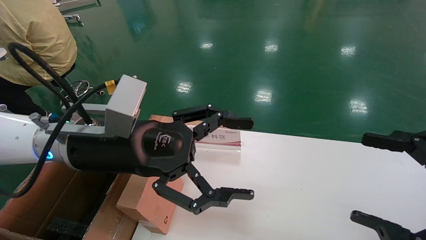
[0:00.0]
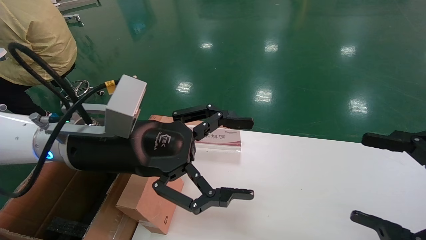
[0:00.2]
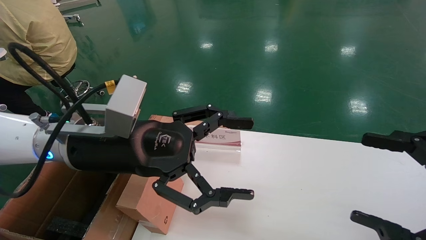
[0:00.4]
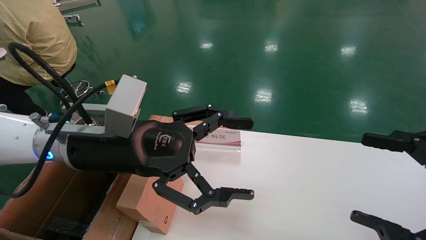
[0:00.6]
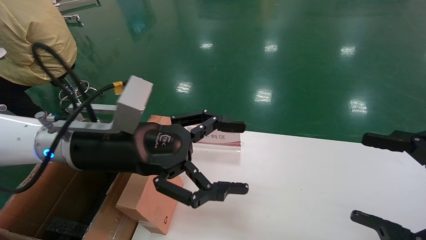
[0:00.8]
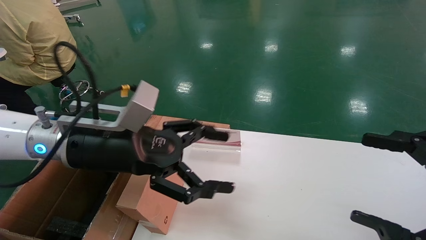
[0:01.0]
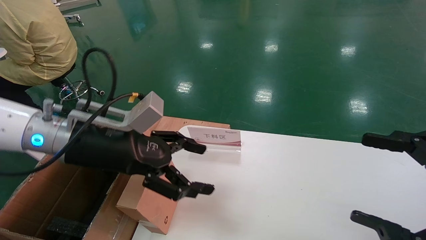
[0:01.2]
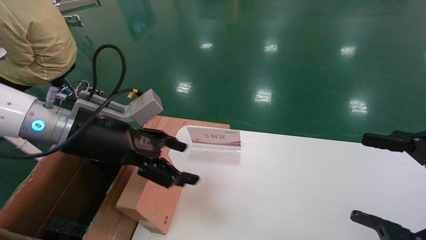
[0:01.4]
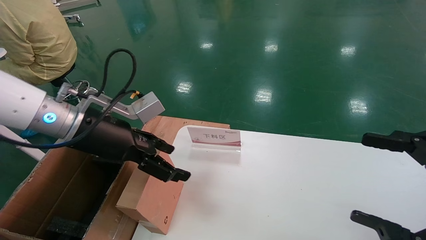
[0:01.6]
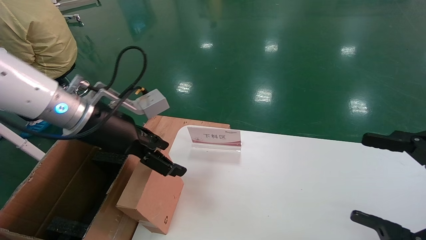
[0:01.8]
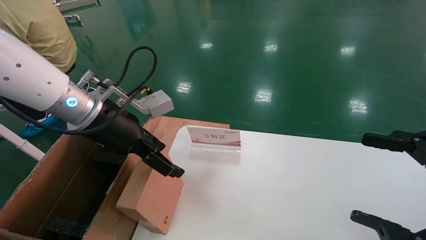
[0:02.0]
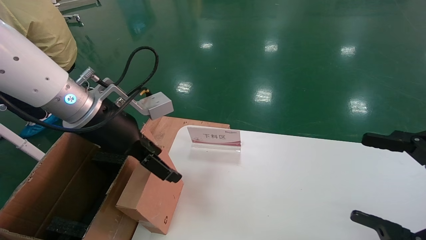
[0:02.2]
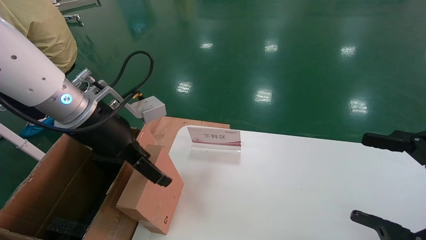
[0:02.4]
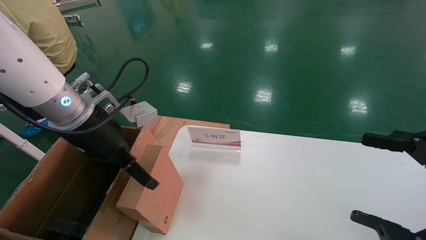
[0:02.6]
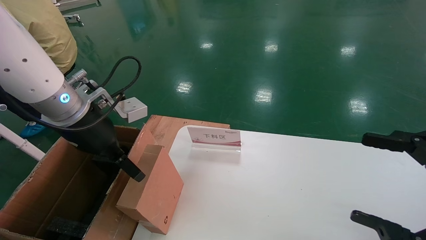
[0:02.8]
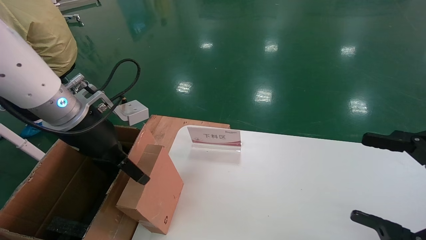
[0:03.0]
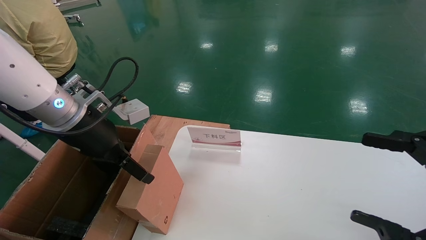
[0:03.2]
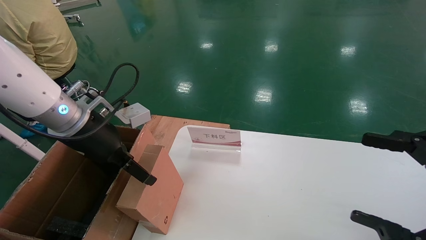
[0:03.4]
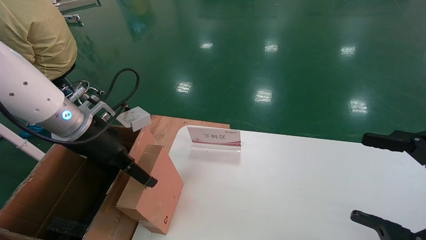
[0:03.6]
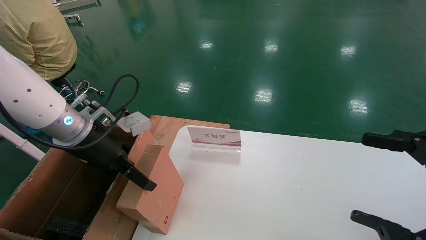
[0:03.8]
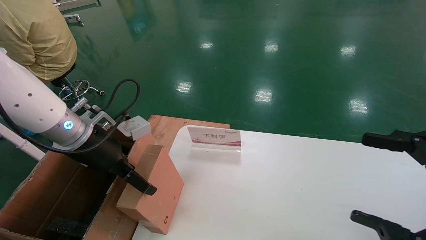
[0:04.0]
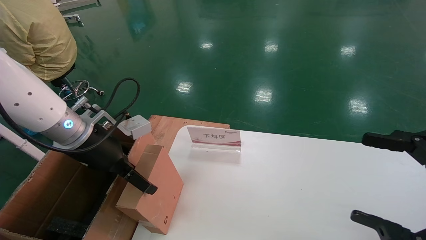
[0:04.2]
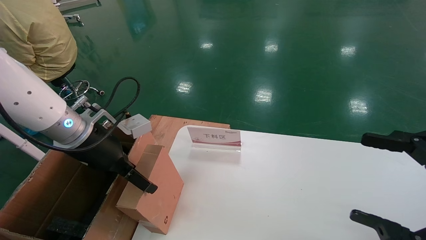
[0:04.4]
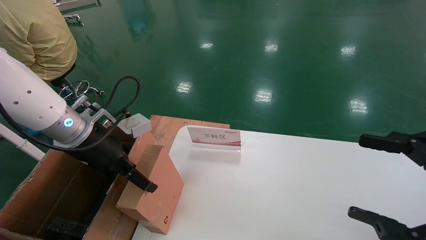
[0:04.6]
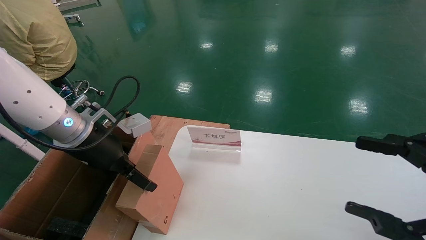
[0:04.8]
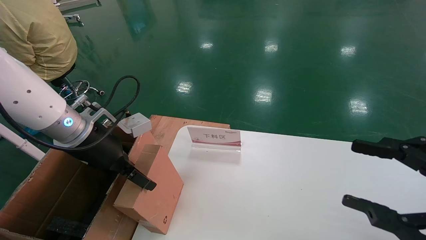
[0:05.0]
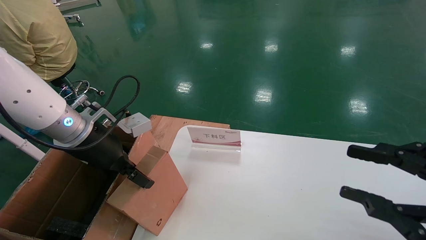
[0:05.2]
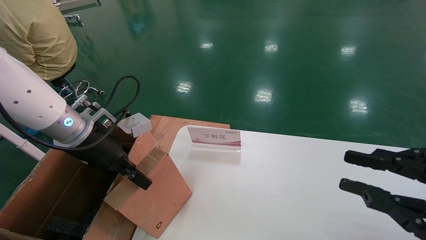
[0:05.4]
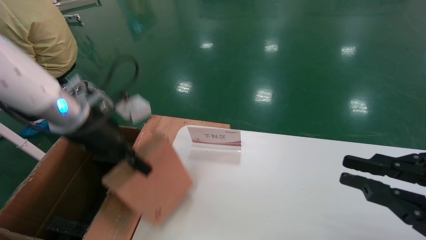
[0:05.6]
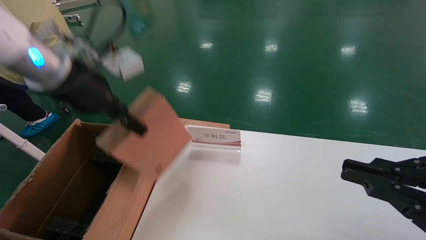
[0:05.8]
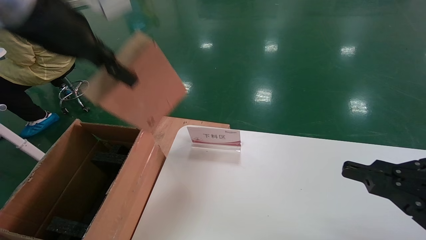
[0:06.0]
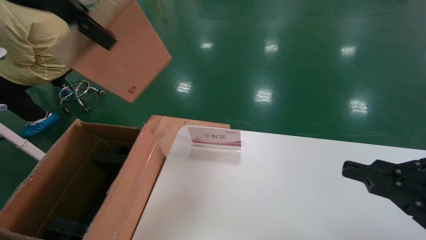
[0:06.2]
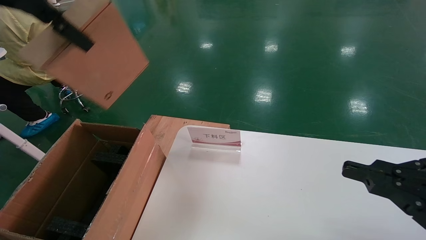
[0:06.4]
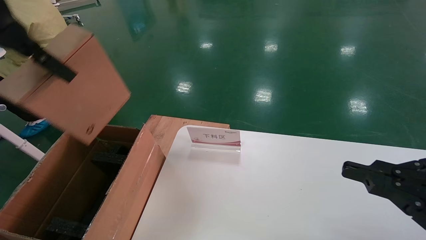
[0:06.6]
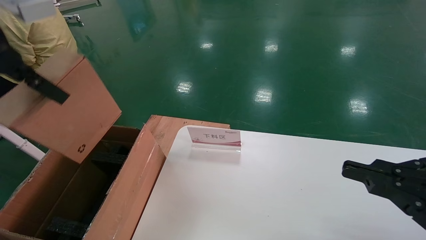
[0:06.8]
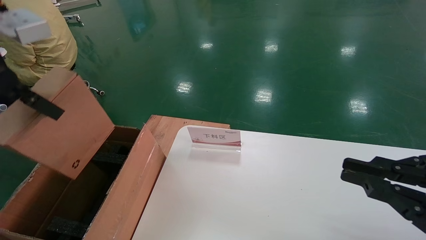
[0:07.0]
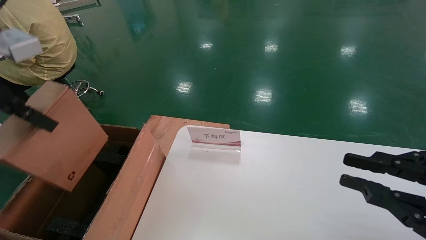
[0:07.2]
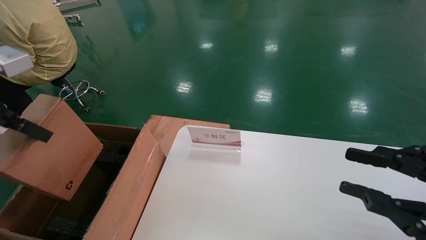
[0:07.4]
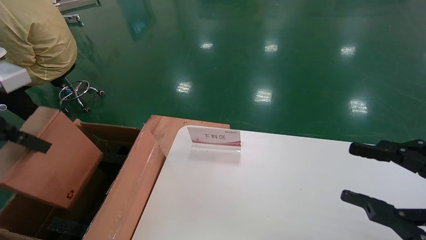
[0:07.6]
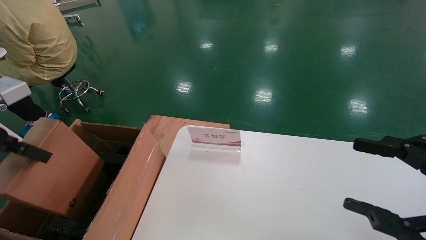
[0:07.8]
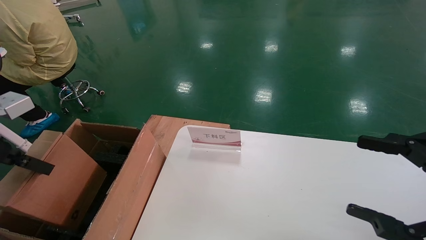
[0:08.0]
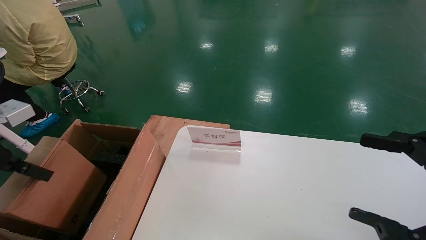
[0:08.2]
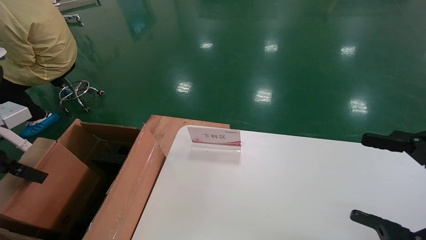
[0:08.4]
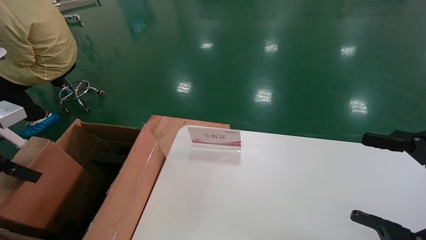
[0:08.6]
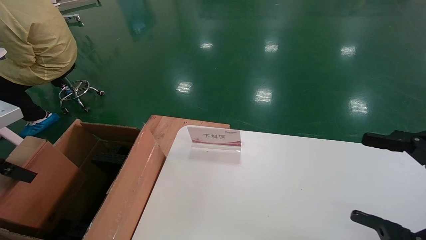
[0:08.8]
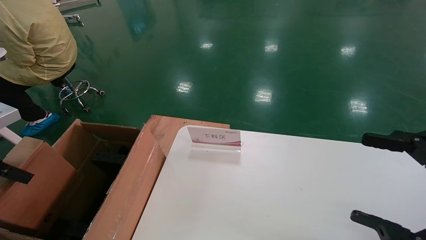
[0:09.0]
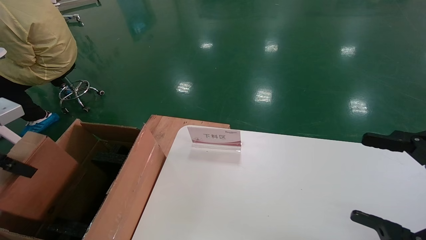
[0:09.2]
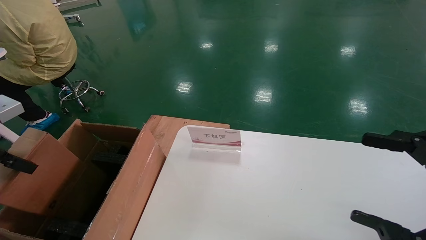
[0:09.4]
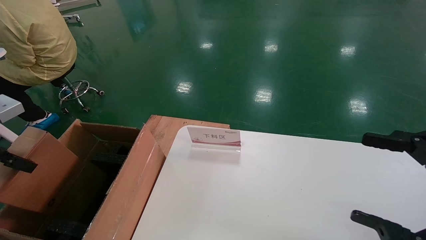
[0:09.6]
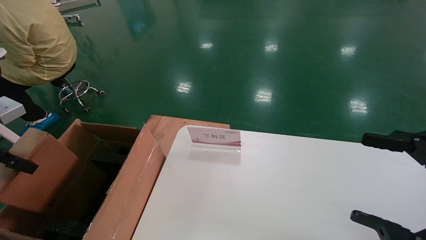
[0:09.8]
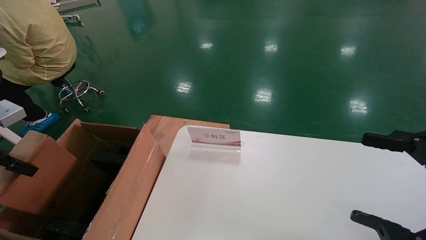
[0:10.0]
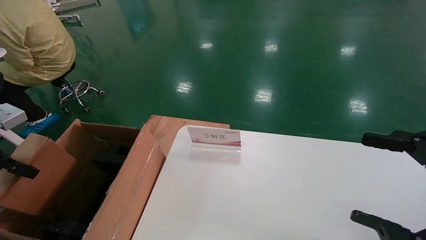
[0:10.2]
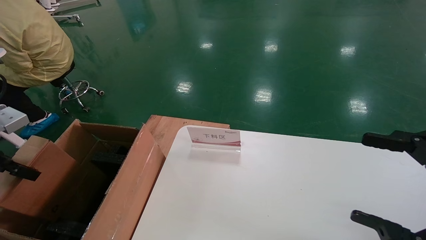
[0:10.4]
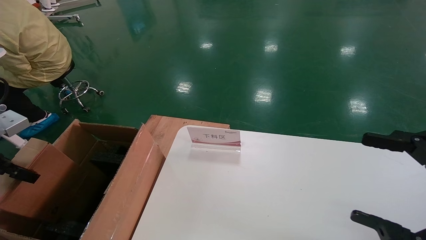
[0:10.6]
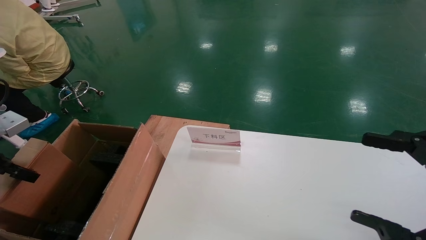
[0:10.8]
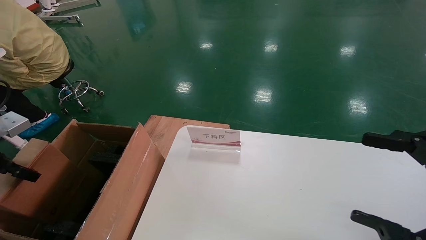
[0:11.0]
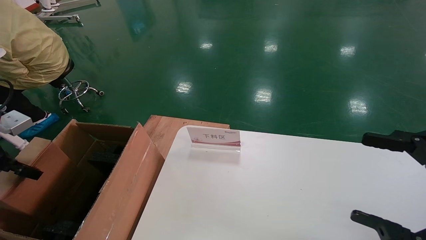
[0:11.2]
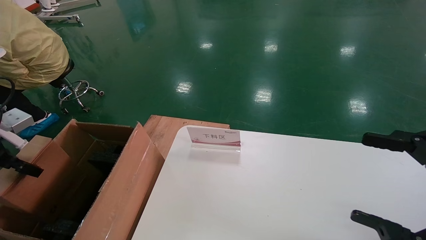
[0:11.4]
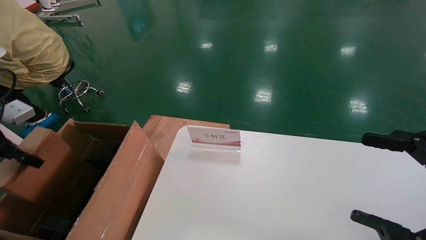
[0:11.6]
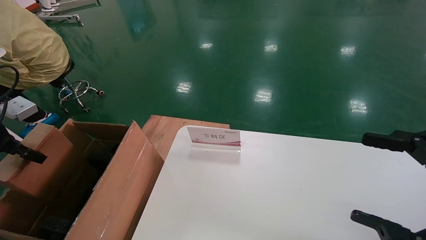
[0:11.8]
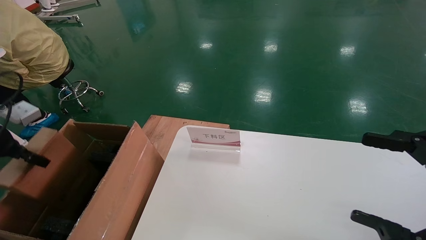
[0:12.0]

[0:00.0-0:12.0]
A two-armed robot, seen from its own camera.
Task of the whole recording: pick up the small cardboard box and load it into the large cardboard box.
Step, 0:01.2 to 0:05.2: Pick up the mouse and power cord box.
0:00.0 to 0:01.6: The left gripper shifts roughly 5 cm to the left.
0:03.0 to 0:04.4: The grippers move only a little.
0:04.4 to 0:06.0: The right gripper closes its fingers; the left gripper goes some 20 cm upward, and closes.
0:06.0 to 0:07.6: The left gripper heads to the left, downward and backward, covering approximately 20 cm. The right gripper opens up.
0:07.6 to 0:09.0: The left gripper heads downward and to the left, covering some 10 cm. Meanwhile the right gripper opens its fingers.
0:09.0 to 0:10.4: The grippers move only a little.
0:10.4 to 0:12.0: The left gripper ends up roughly 5 cm from where it was.

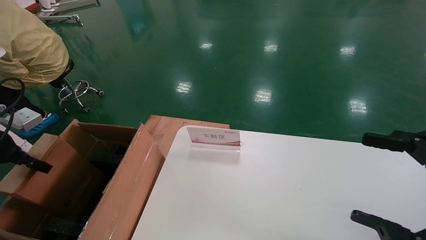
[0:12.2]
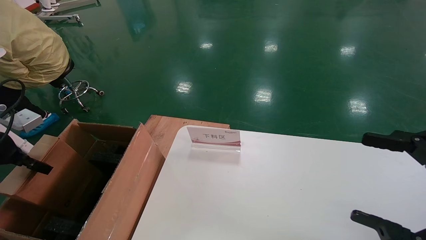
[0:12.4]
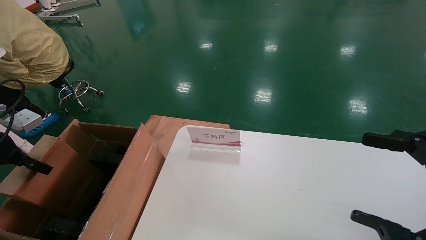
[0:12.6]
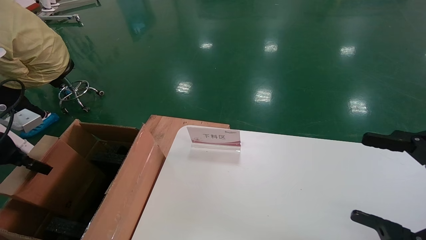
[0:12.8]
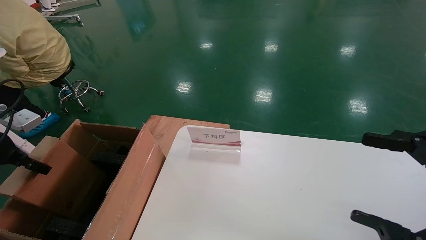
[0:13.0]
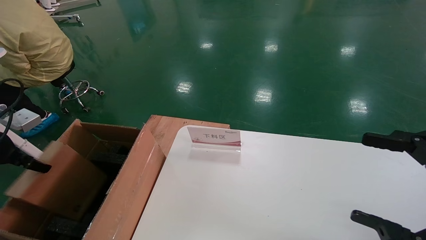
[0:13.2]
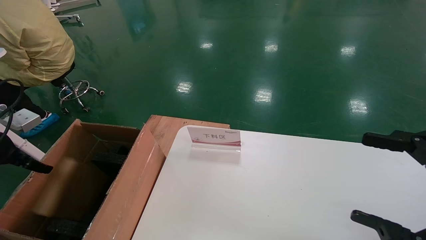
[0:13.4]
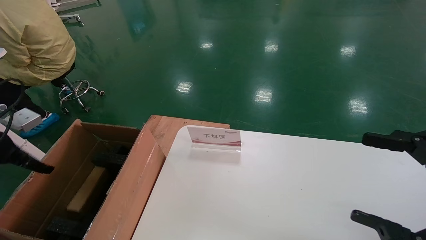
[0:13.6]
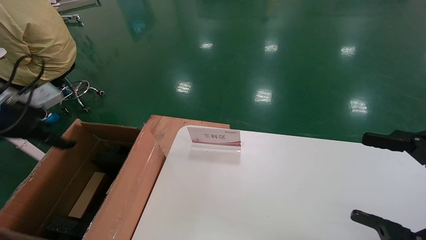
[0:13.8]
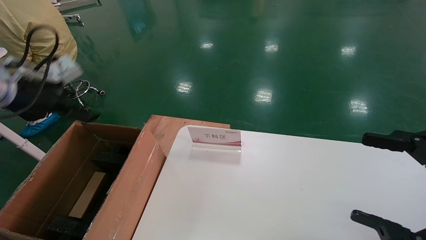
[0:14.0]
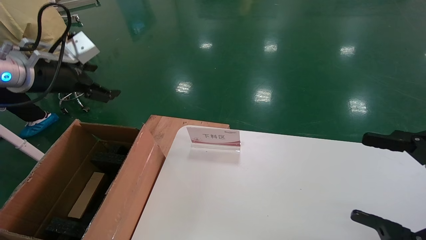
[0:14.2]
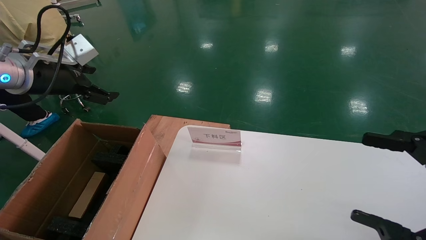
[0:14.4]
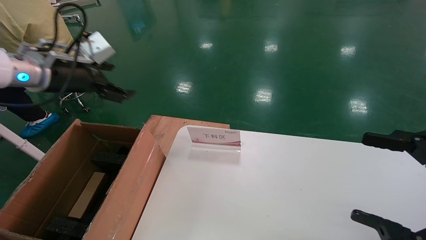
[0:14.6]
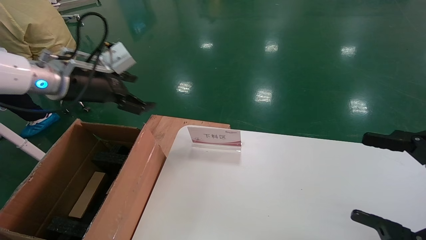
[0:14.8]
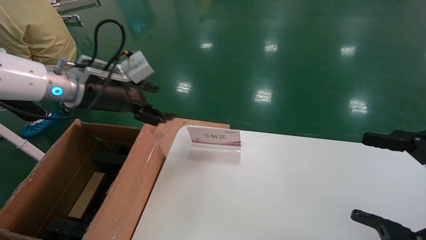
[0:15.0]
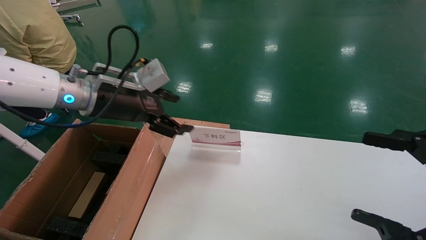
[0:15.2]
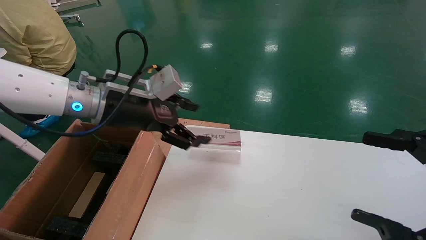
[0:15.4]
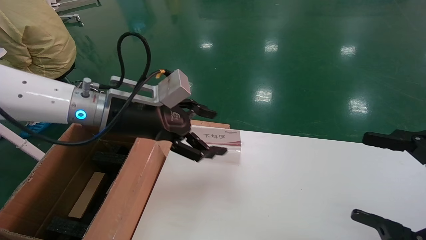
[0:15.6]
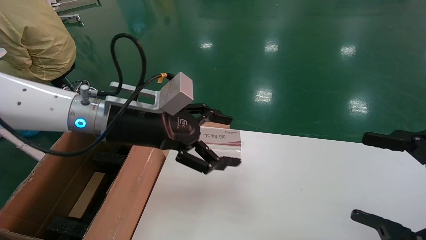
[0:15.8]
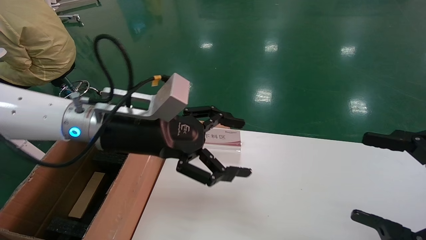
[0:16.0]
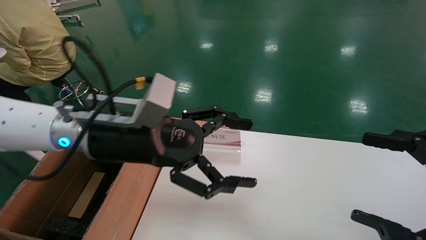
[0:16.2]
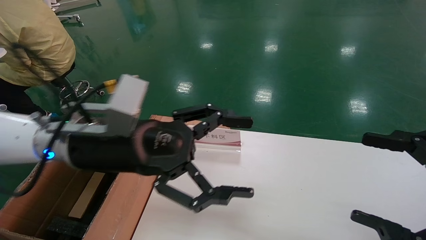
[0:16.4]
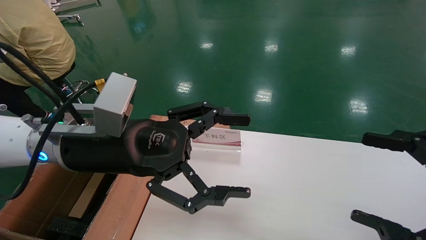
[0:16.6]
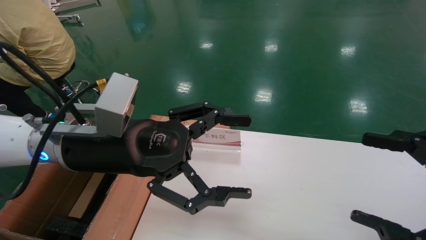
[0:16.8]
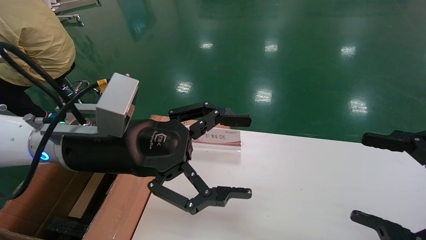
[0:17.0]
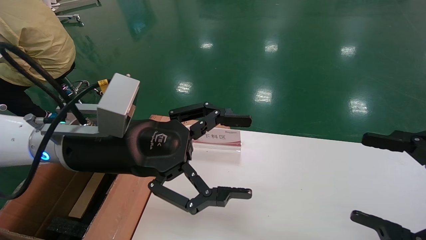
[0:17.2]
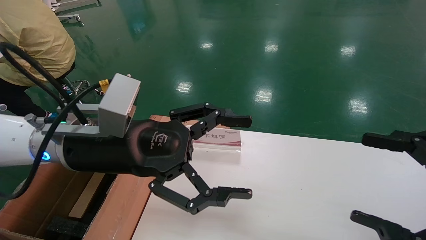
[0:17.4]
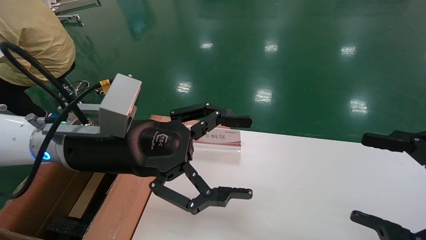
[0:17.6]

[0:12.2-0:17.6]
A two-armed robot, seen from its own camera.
Task of the whole recording: pick up the small cardboard box and load it into the large cardboard box.
0:12.2 to 0:13.6: The left gripper opens up.
0:13.6 to 0:15.0: The left gripper is displaced to the right by some 20 cm, and opens.
0:15.0 to 0:16.2: The left gripper is displaced to the right and backward by roughly 15 cm.
0:16.2 to 0:17.6: The grippers stay close to where they were, moving slightly.
